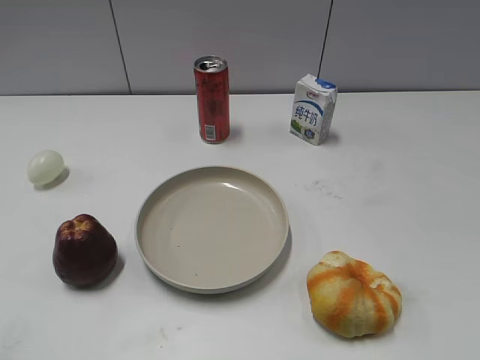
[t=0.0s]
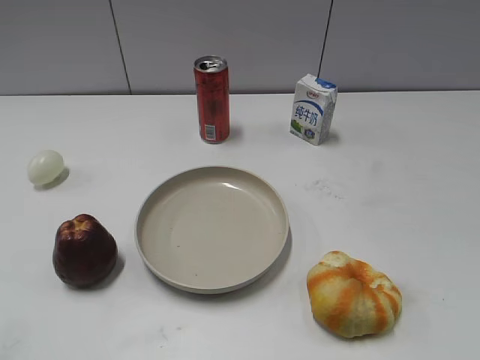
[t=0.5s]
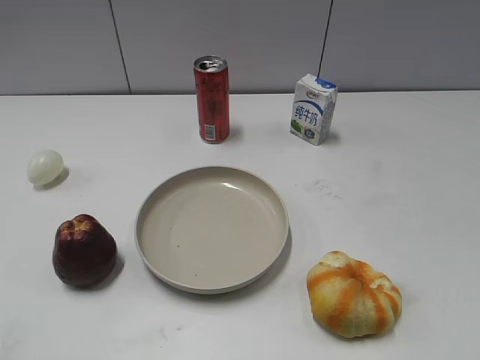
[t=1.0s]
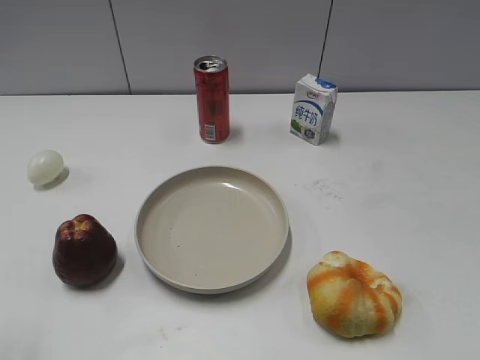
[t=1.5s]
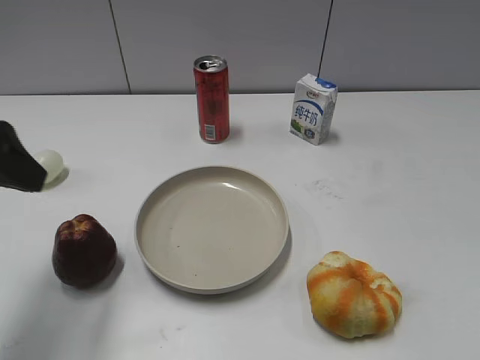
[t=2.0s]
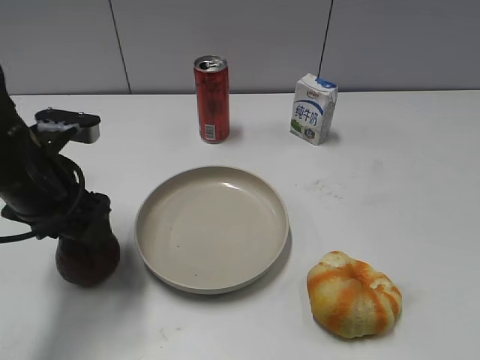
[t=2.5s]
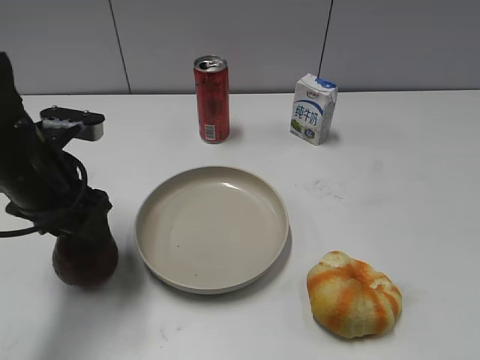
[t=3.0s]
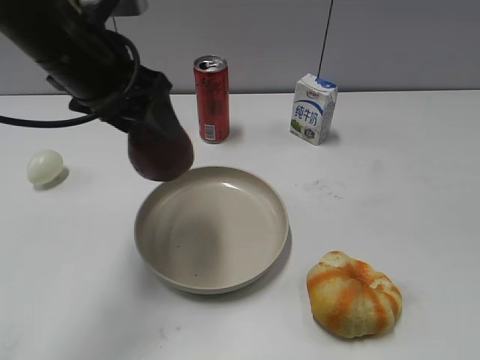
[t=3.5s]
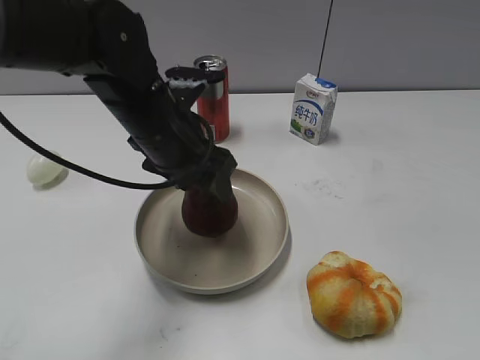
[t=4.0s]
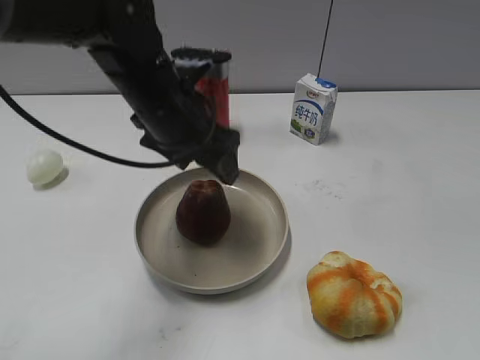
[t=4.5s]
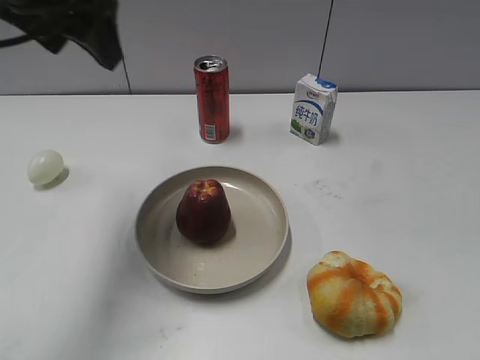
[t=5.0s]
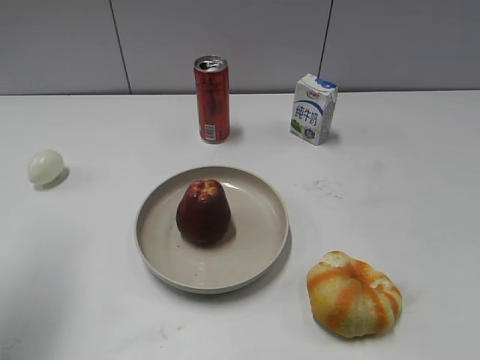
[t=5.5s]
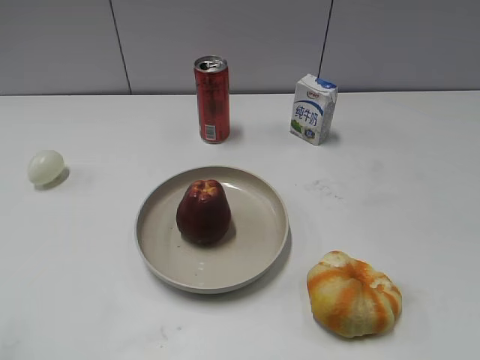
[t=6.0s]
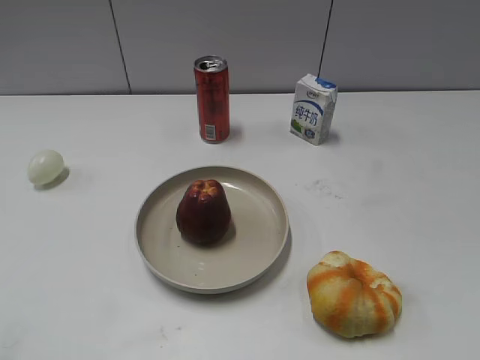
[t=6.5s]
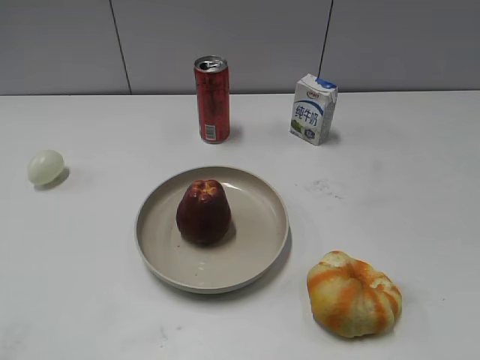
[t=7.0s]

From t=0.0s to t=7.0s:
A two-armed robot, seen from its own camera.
Step, from t=1.0s to t=2.5s: Grasp the apple with left gripper.
Step, from t=3.0s to t=4.5s: Place the apple on the plate with left gripper.
From t=2.0s to t=3.5s: The left gripper heads forward and to the right, covering roughly 15 cm, reaches some 10 cm downward, then returns, and closes its fingers.
From t=3.5s to t=5.0s: The left gripper heads upward, covering roughly 5 cm, and opens up.
From t=5.0s to t=7.0s: The left gripper moves backward and to the left, some 35 cm, and closes.

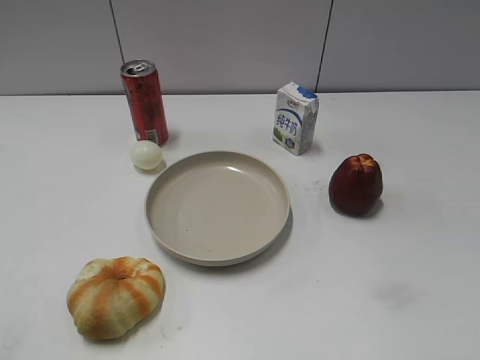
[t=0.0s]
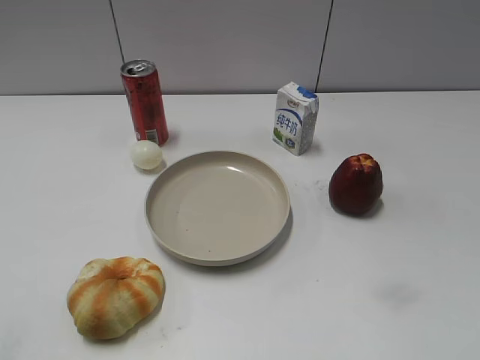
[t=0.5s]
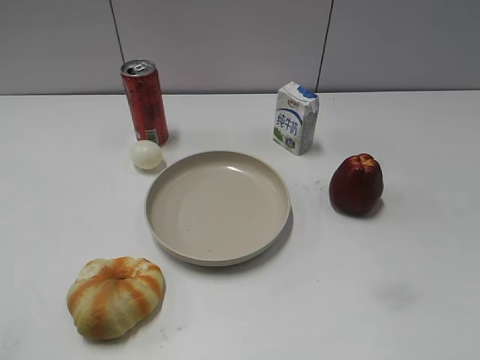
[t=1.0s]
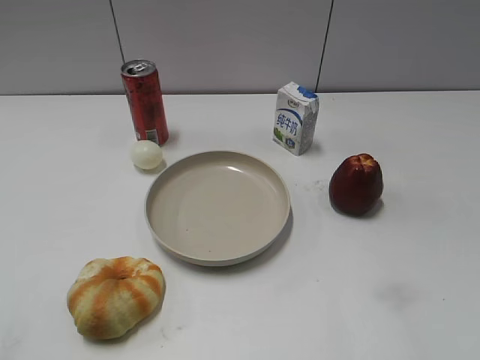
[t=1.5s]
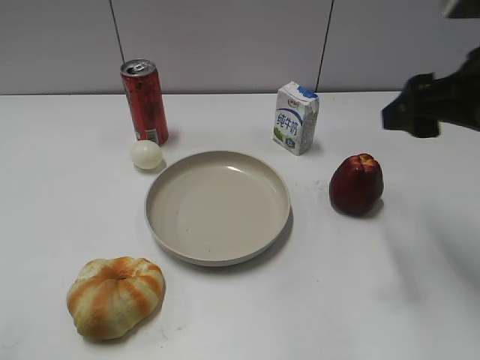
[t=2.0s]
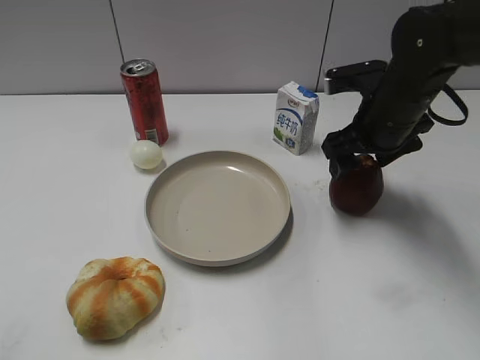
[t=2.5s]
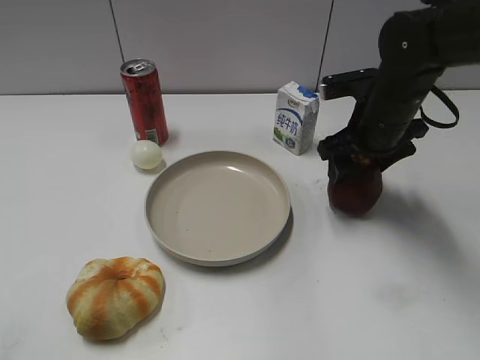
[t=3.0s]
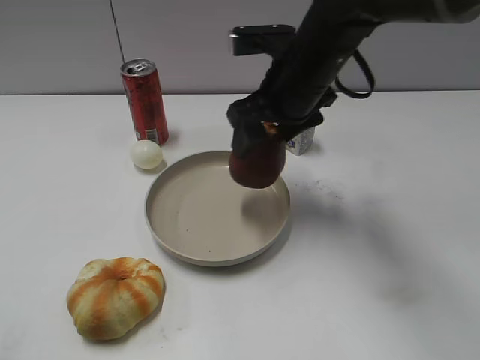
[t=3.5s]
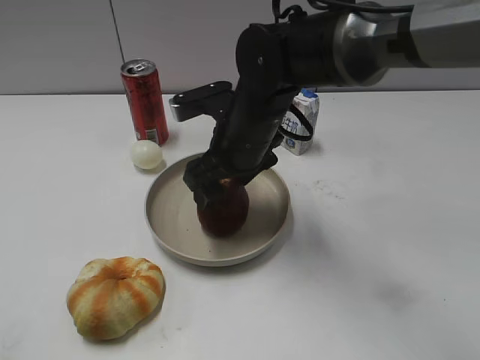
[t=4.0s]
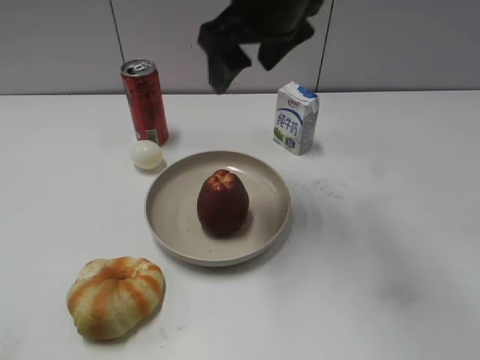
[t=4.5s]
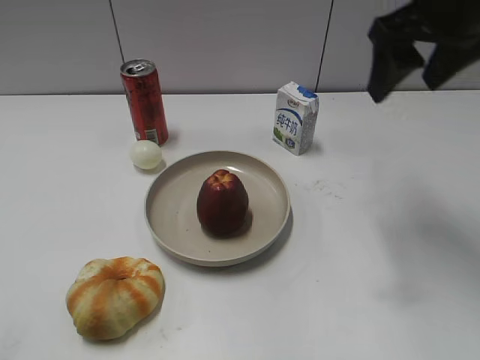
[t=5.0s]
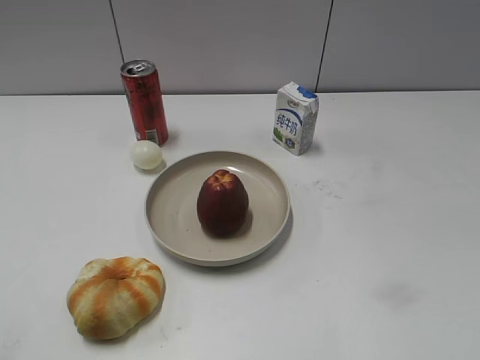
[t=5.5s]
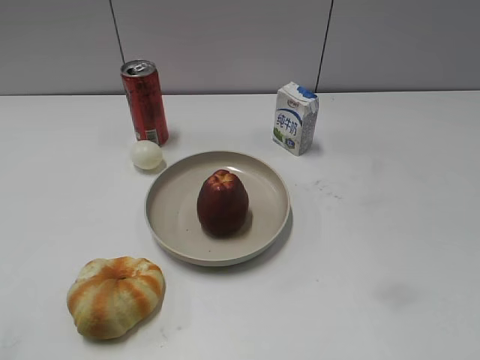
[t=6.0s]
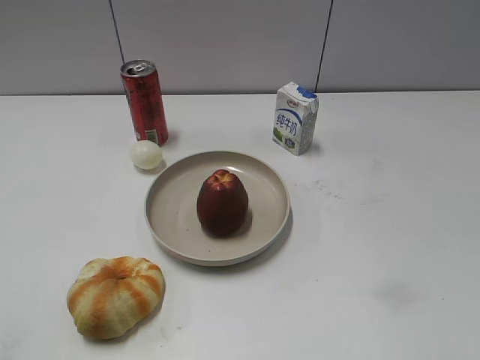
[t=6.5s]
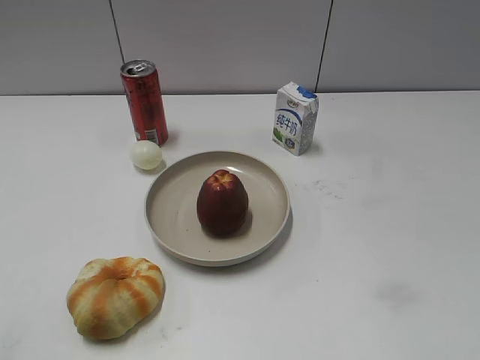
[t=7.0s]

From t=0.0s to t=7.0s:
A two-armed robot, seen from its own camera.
Step, from t=1.5s to t=2.5s: Grasp the apple with right gripper.
Step, from t=3.0s to t=4.0s: Place the apple on the plate with right gripper.
From t=2.0s to t=3.5s: The right gripper shifts approximately 20 cm to the left and forward.
From t=3.5s to t=5.0s: The right gripper travels to the right and upward by approximately 15 cm.
From t=5.0s to t=7.0s: The right gripper moves backward, about 30 cm.
